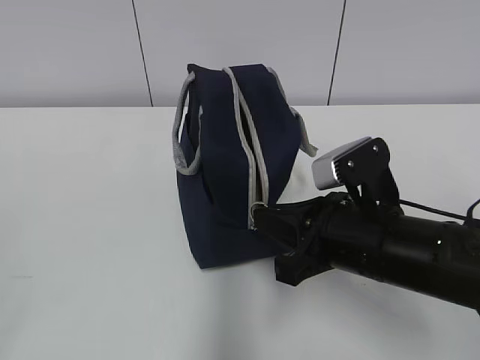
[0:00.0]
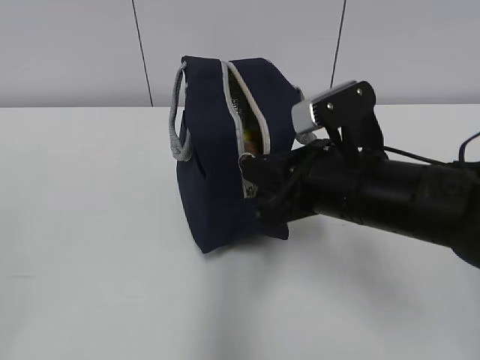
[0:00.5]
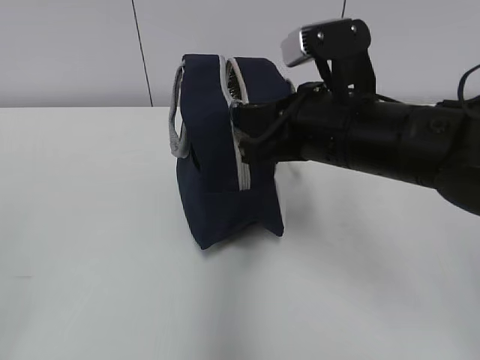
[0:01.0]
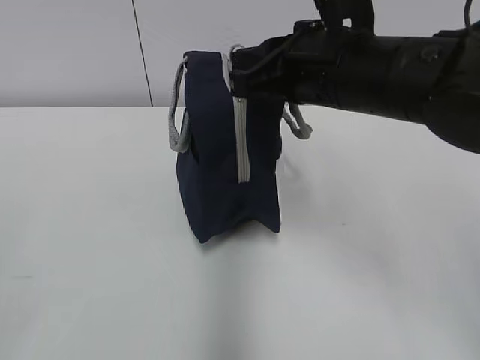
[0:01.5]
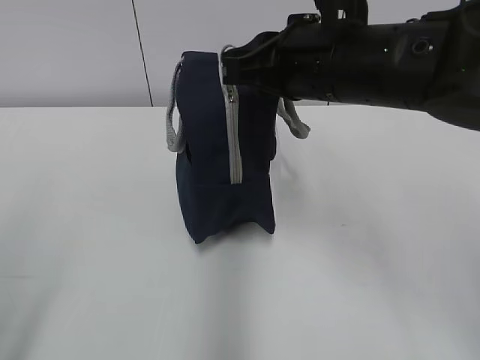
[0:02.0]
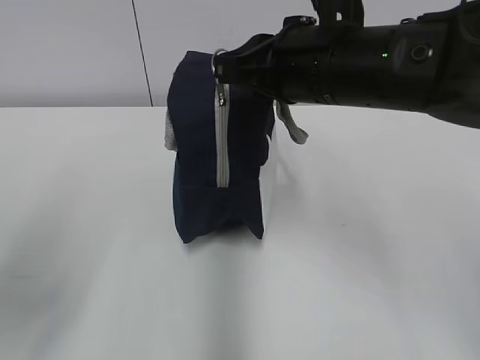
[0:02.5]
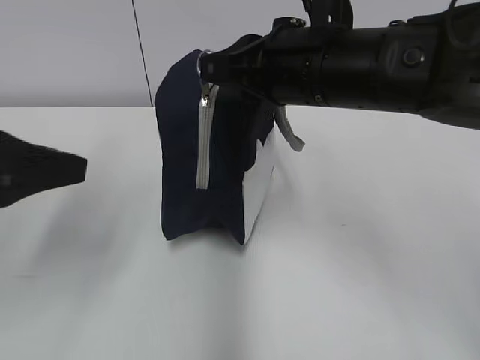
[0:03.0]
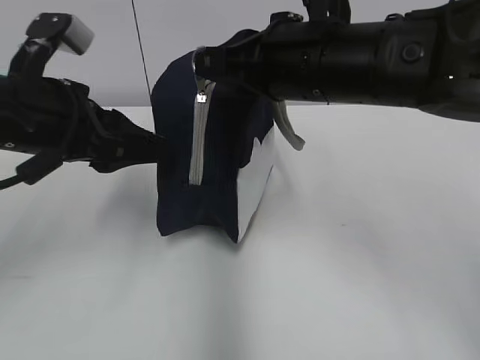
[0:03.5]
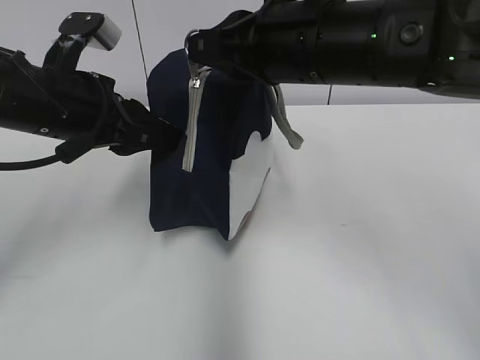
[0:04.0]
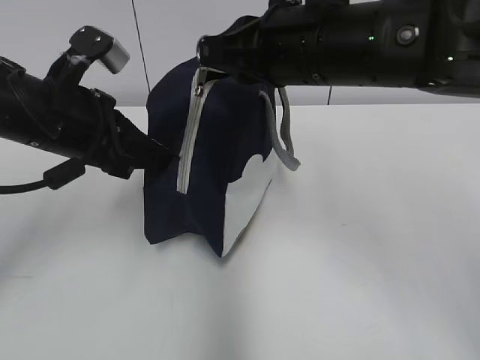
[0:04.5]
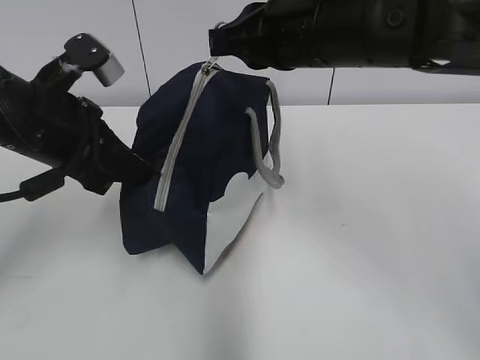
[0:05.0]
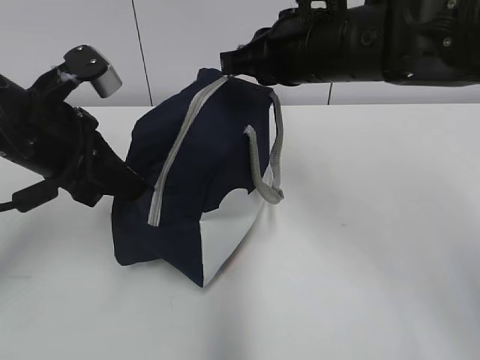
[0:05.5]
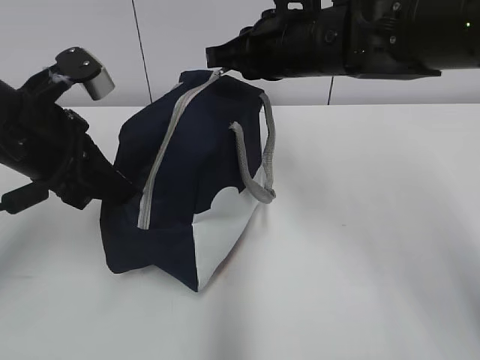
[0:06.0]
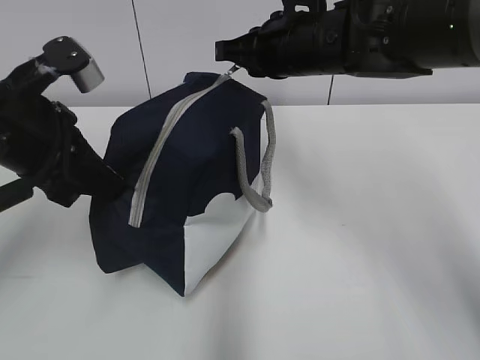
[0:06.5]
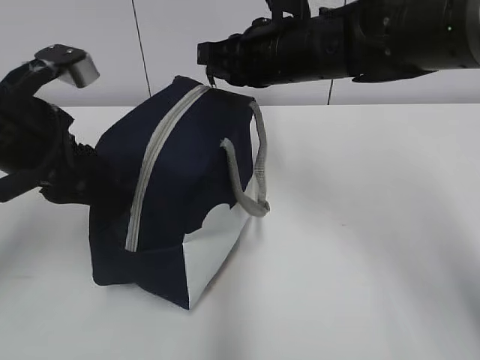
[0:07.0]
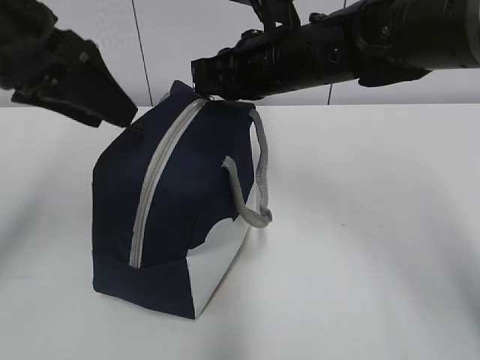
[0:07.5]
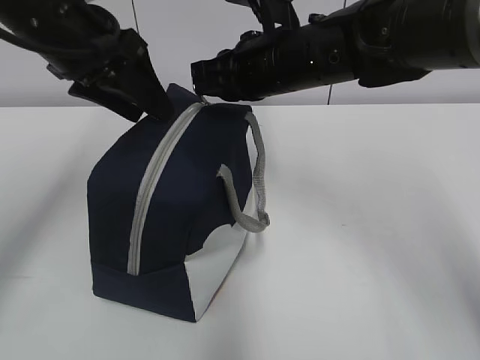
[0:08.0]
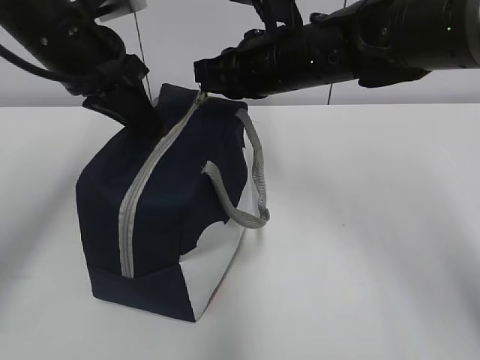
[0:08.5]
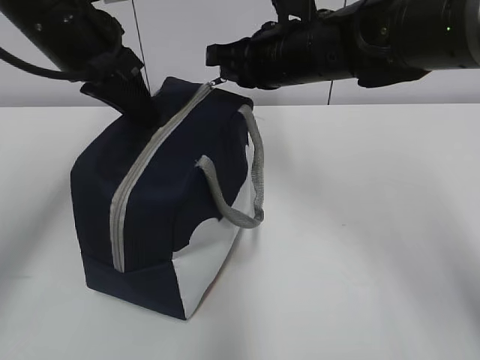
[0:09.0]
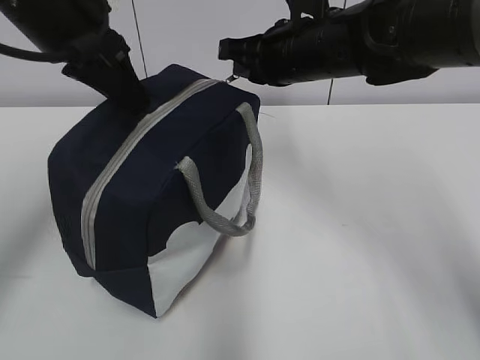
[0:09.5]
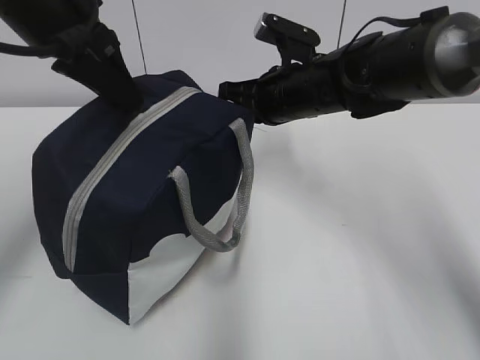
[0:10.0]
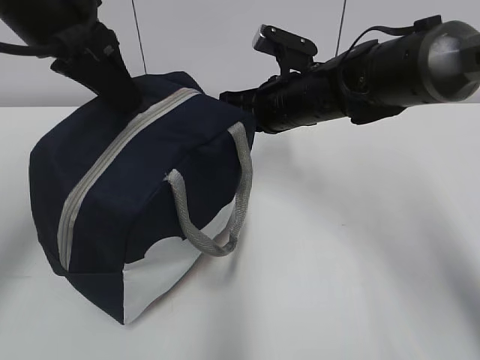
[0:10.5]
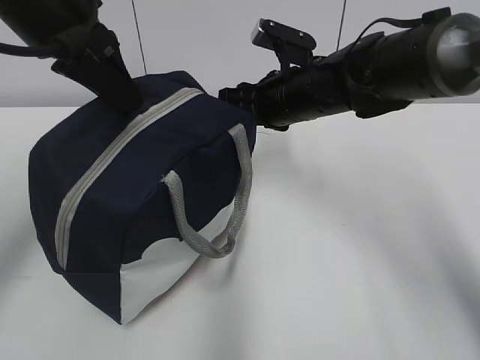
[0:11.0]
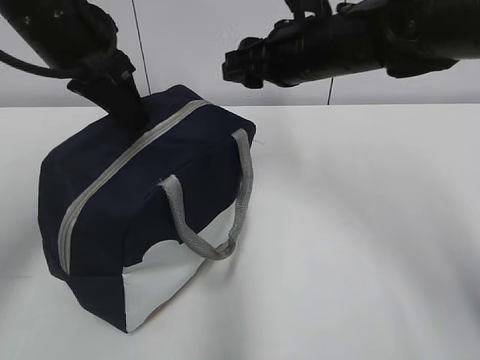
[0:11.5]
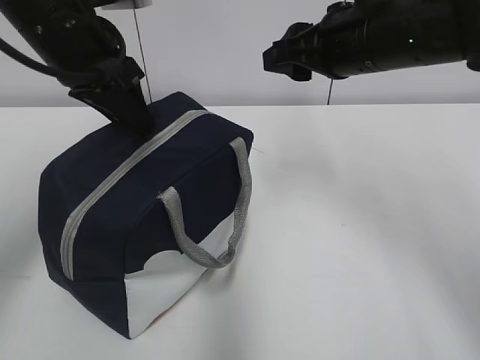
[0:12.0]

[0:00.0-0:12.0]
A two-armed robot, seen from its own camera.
Step, 0:00.0 to 0:06.5: Grab the lunch bag with your left hand.
Step, 0:07.0 to 0:10.5: Pull the zipper with your right hand.
0:00.0 to 0:02.0: The right gripper moves upward and forward, about 15 cm. The left gripper ends up approximately 5 cm from where it was.
0:02.0 to 0:04.0: The left gripper shifts roughly 30 cm forward and to the right.
0:04.0 to 0:06.0: The right gripper heads forward, covering about 10 cm; the left gripper closes up.
0:06.0 to 0:08.0: The left gripper is displaced upward and forward by about 10 cm, and opens its fingers.
0:08.0 to 0:10.0: The right gripper travels downward by approximately 5 cm, while the left gripper closes.
0:10.0 to 0:12.0: The left gripper opens its fingers; the right gripper is displaced upward and backward by approximately 10 cm, and opens.

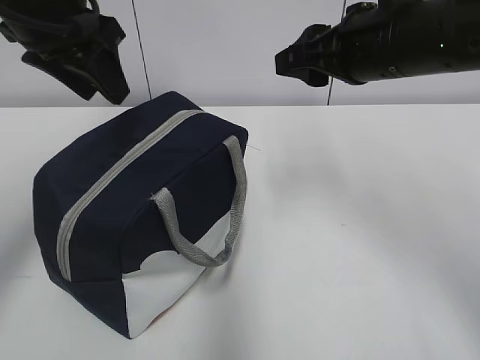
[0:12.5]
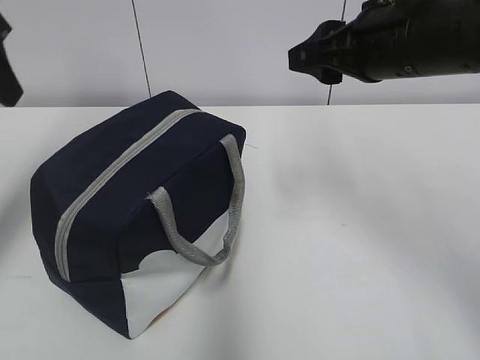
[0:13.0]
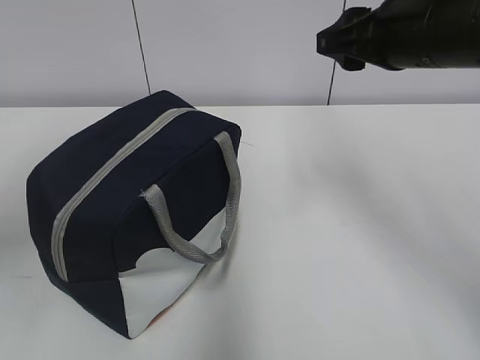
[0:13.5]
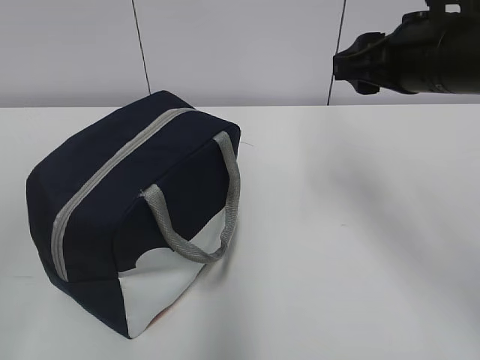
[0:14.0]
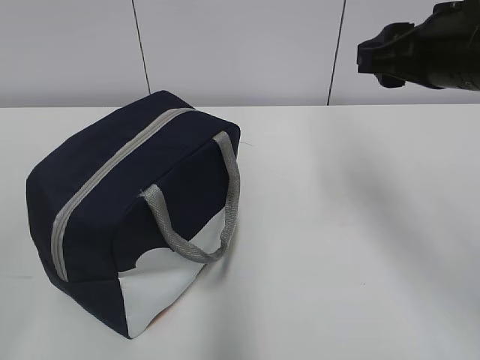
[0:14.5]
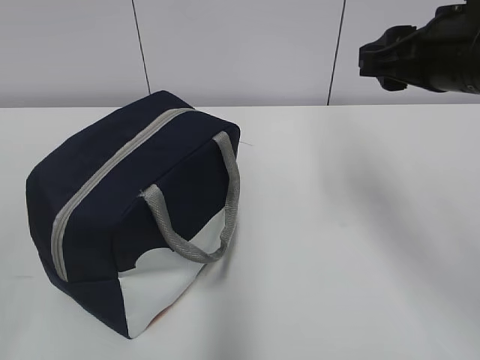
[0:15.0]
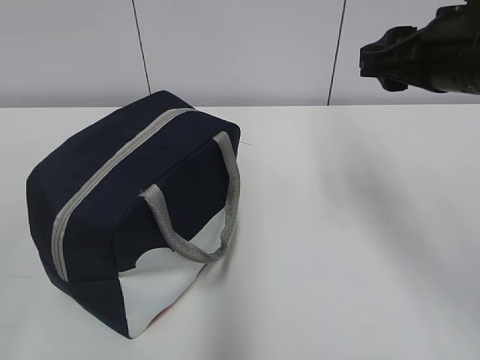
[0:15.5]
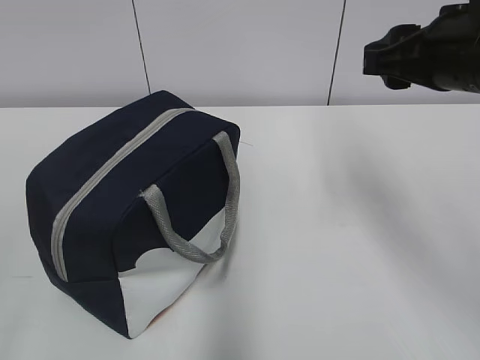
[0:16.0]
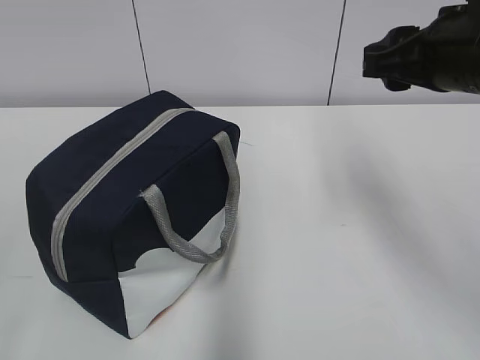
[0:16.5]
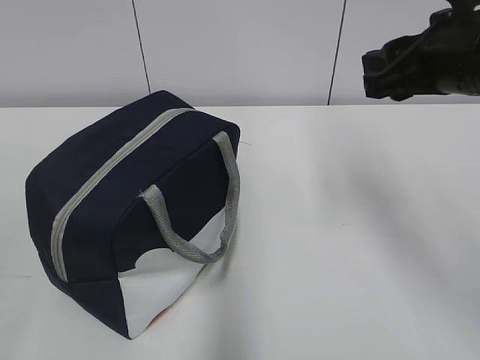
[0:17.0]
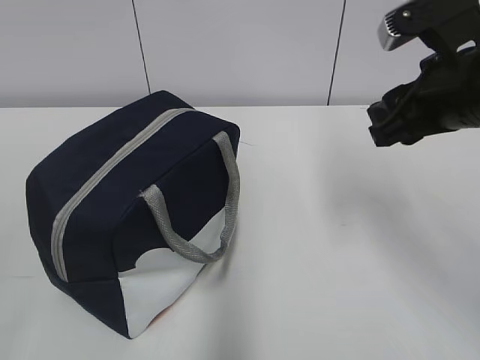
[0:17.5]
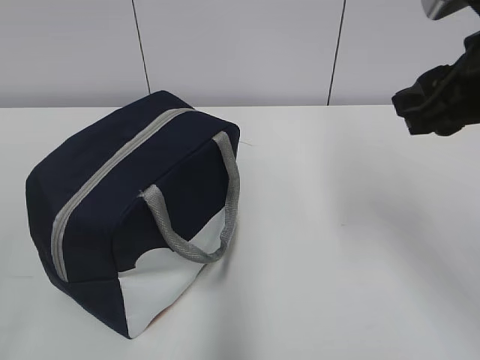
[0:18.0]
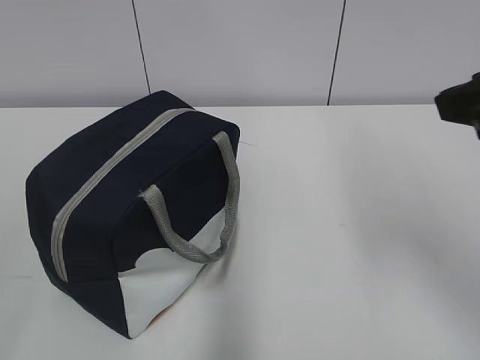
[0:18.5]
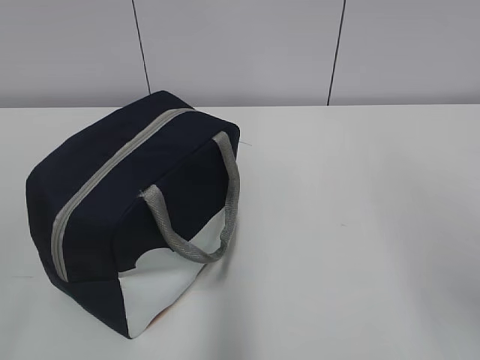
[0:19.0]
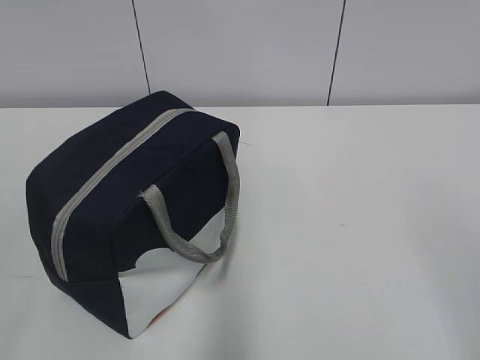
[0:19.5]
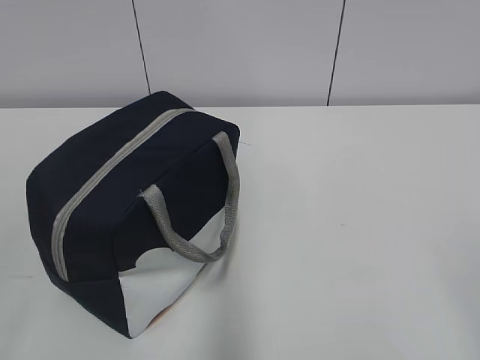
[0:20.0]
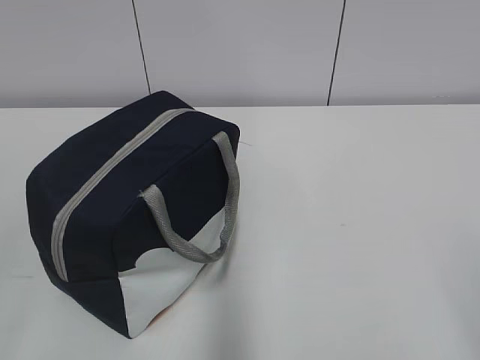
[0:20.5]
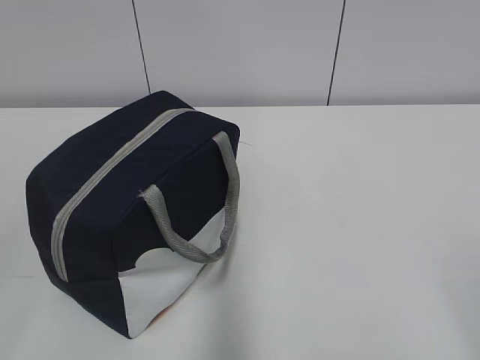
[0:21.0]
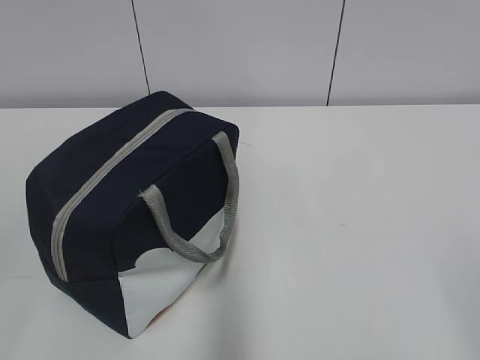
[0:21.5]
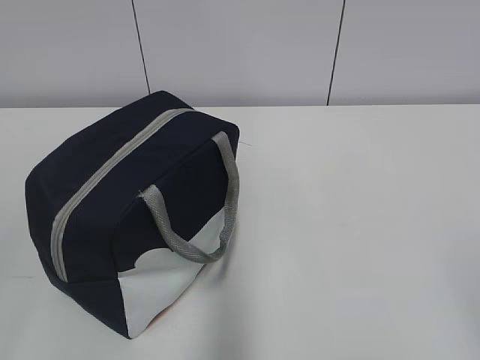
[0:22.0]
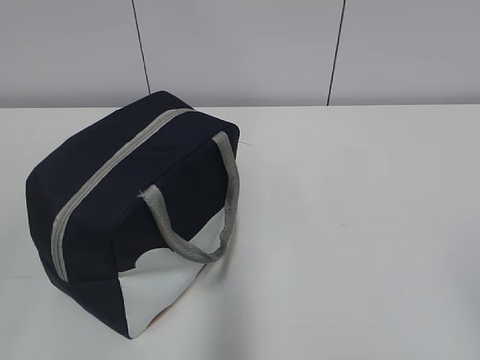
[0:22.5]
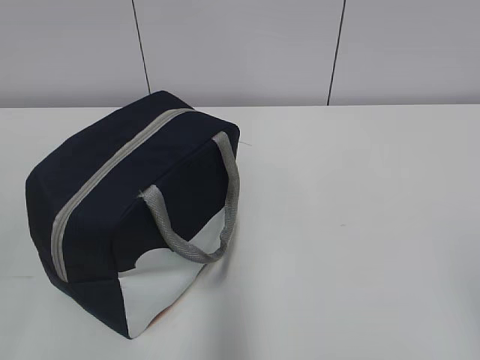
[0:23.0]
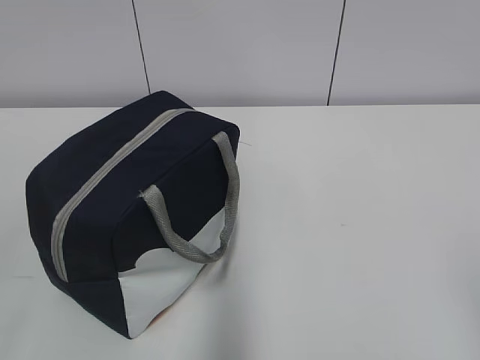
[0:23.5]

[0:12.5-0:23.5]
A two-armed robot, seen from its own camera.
0:12.5 to 0:14.5: The left gripper shifts some 35 cm backward and to the left. Meanwhile the right gripper ends up about 5 cm from where it was.
0:18.0 to 0:20.0: The right gripper is displaced backward by roughly 30 cm.
